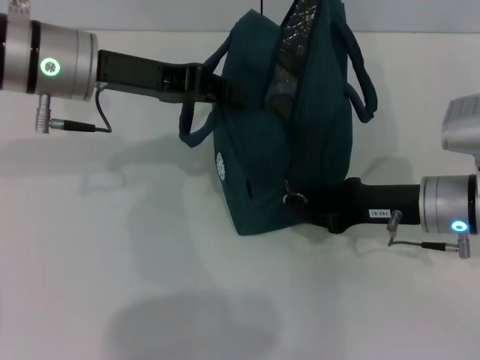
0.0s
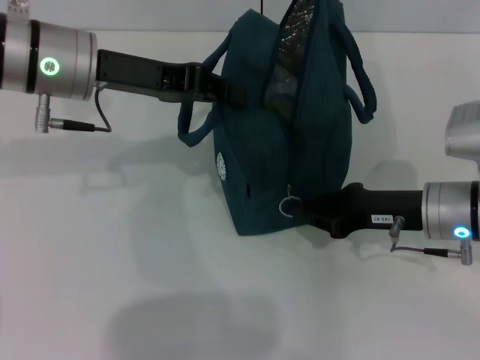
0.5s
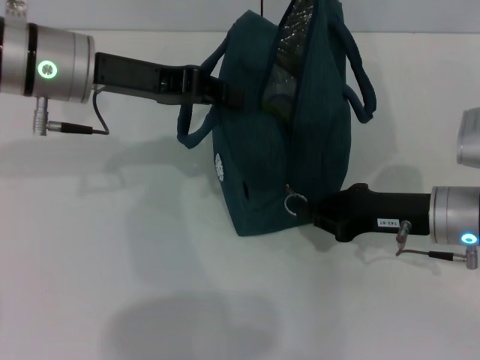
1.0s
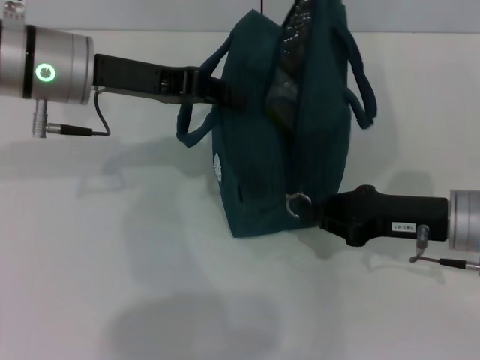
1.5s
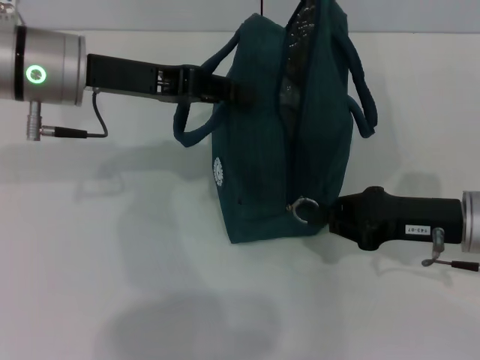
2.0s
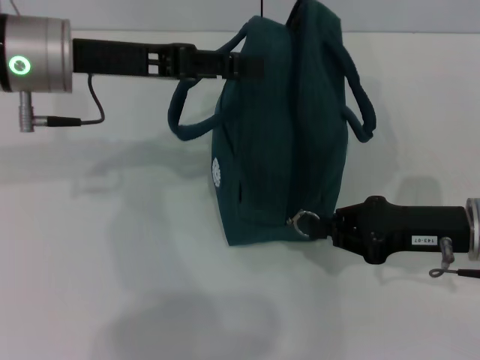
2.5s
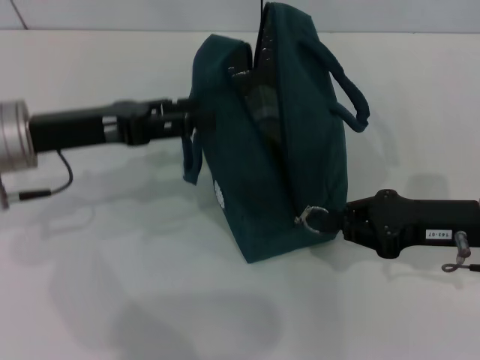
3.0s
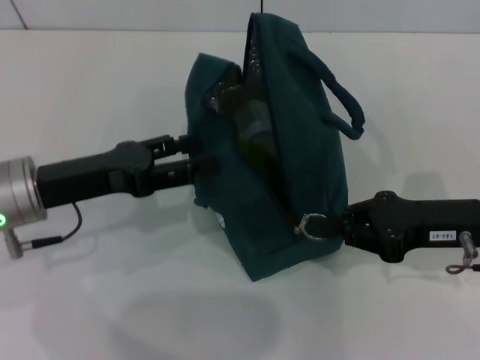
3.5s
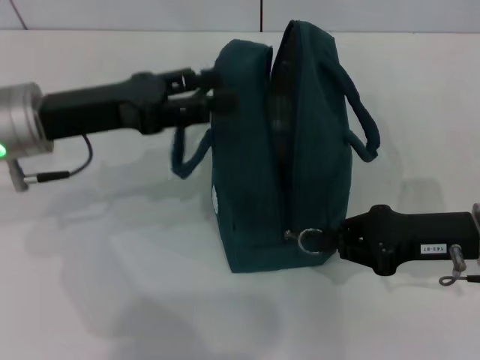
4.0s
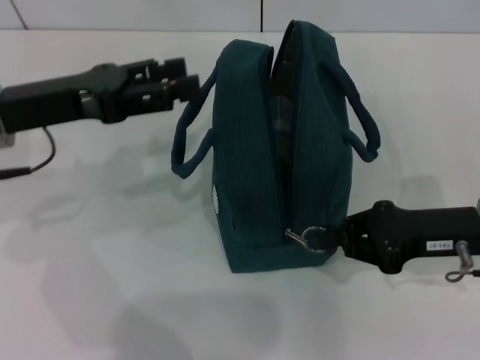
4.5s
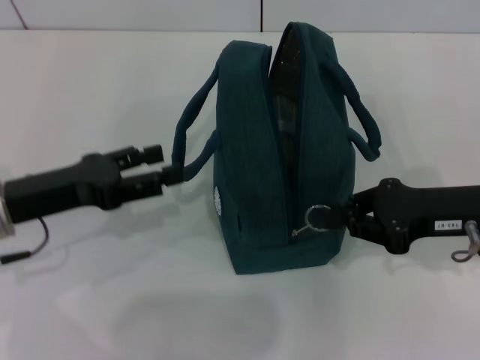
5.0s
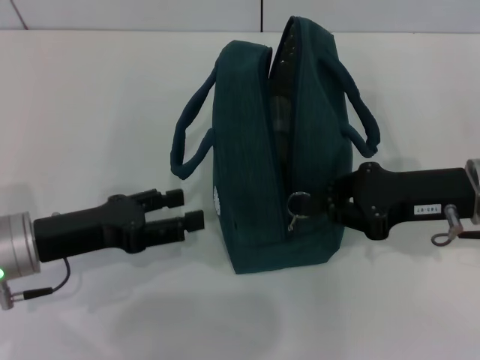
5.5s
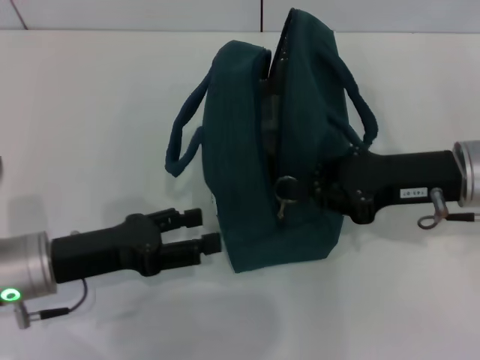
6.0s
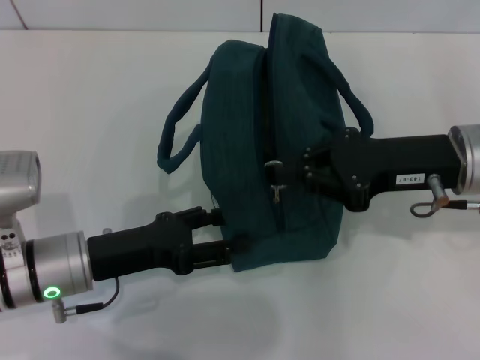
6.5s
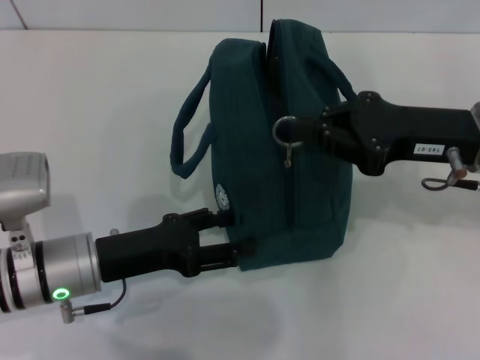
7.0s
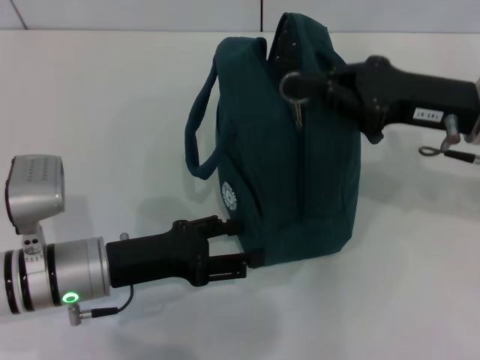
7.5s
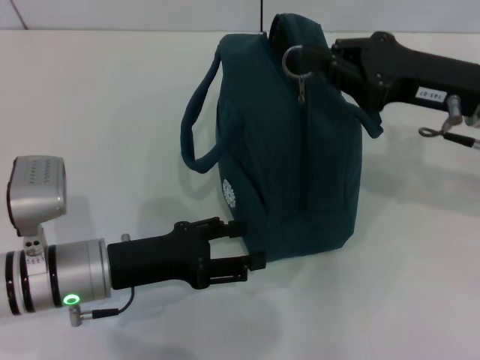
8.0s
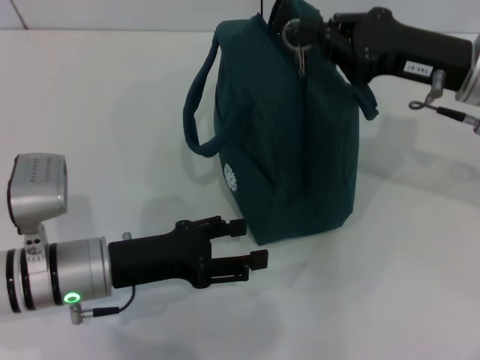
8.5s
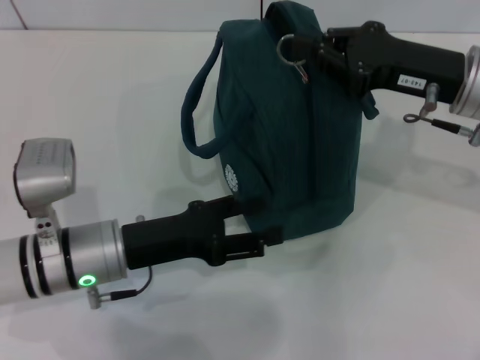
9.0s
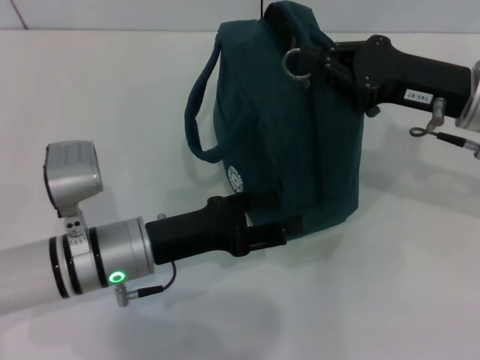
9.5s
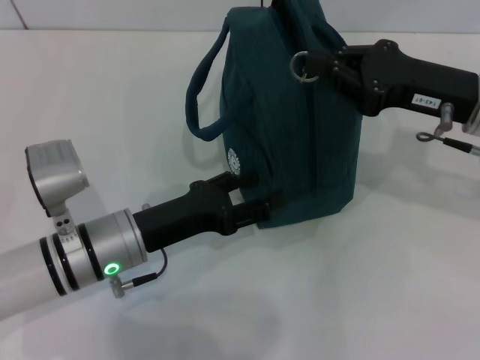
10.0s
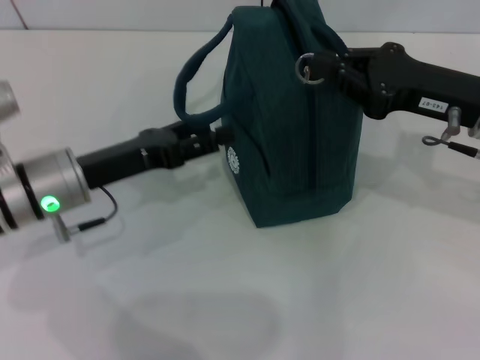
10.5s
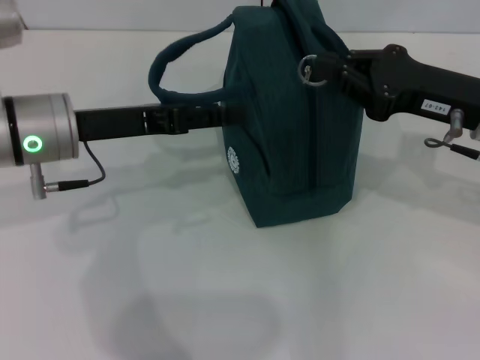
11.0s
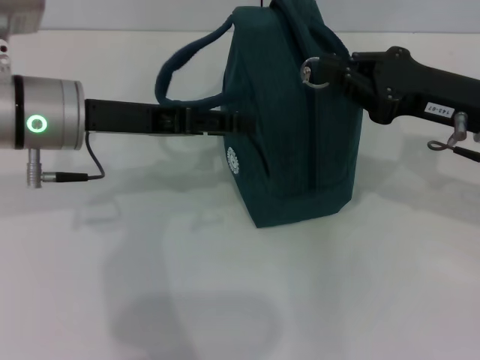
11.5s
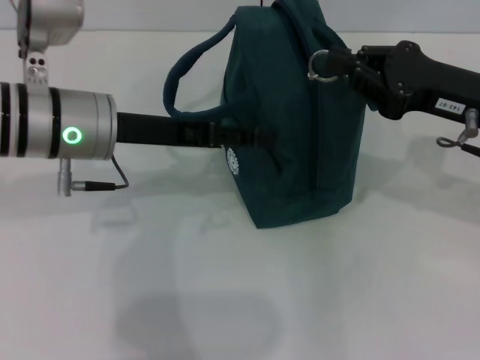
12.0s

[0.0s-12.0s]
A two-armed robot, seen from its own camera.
Step, 0.0s to 2.5s: Hold the lunch bag with your left hand.
0.0s to 2.0s: The right gripper closes its fingers.
2.0s to 4.0s: The left gripper opens its fingers.
4.0s to 6.0s: The right gripper moves about 5 cm. Meanwhile the left gripper goes roughly 10 cm downward and backward.
6.0s to 8.0s: The left gripper moves roughly 5 cm.
10.0s to 12.0s: The left gripper is displaced upward and forward by roughly 15 cm.

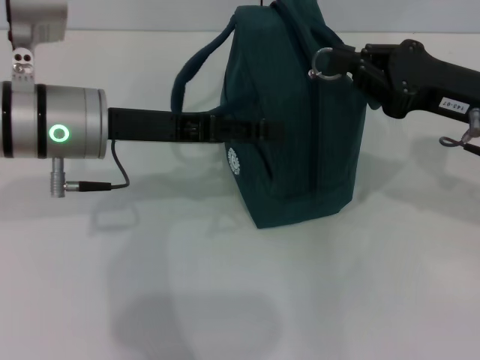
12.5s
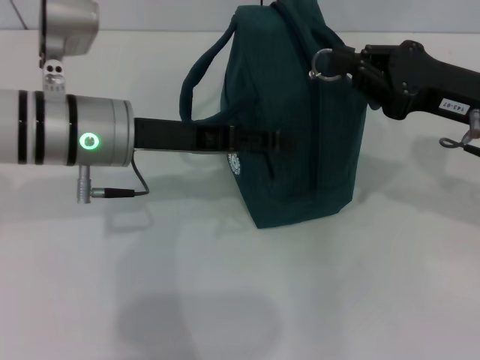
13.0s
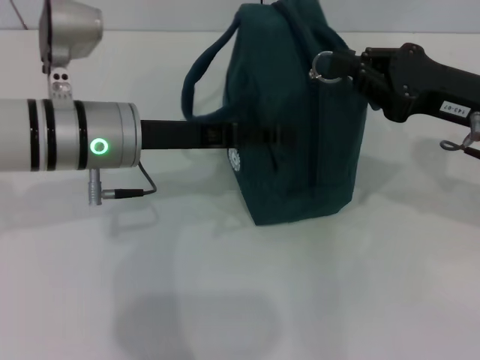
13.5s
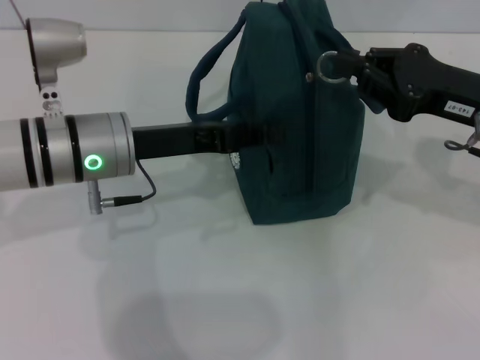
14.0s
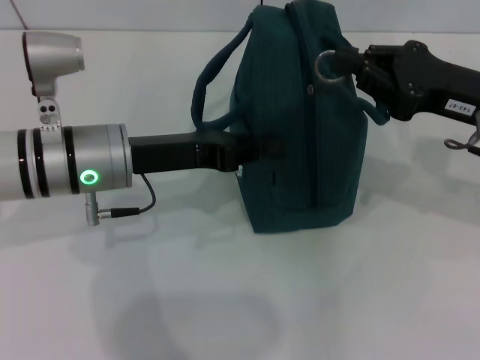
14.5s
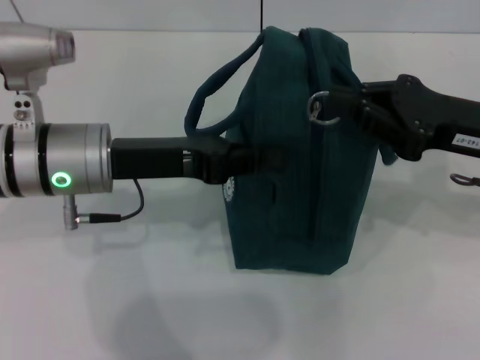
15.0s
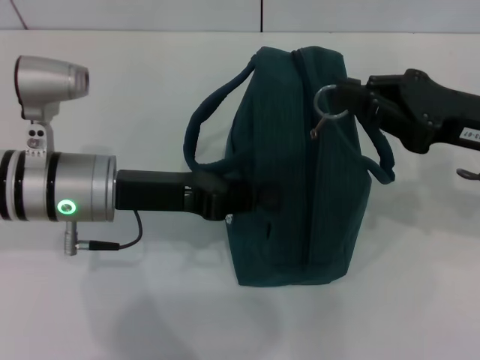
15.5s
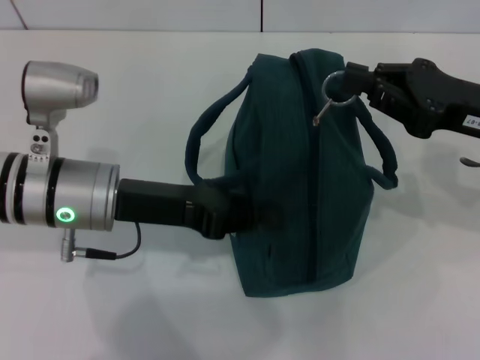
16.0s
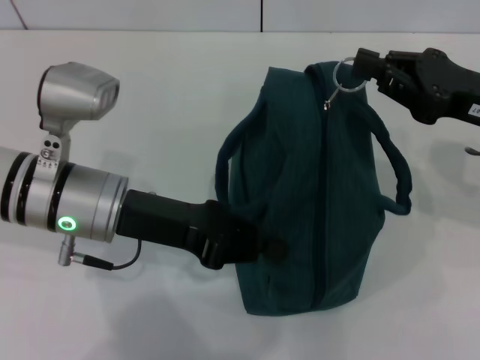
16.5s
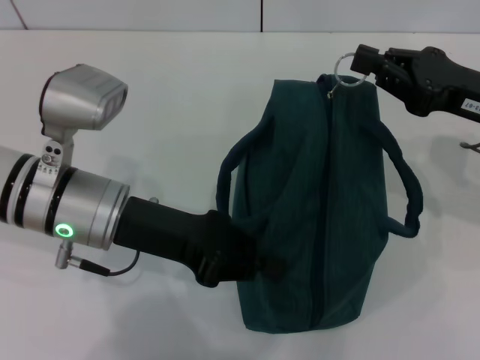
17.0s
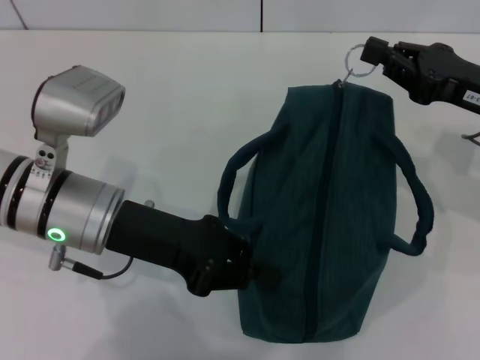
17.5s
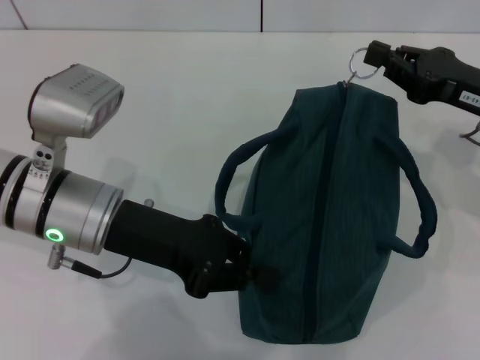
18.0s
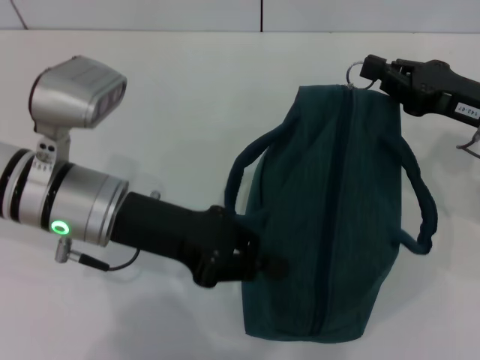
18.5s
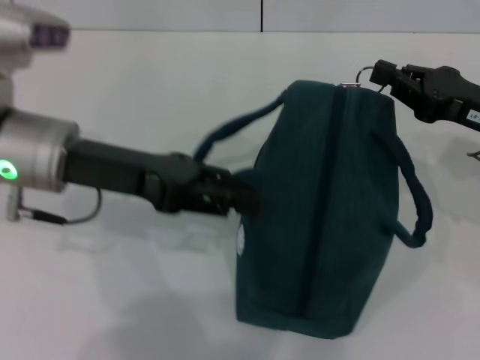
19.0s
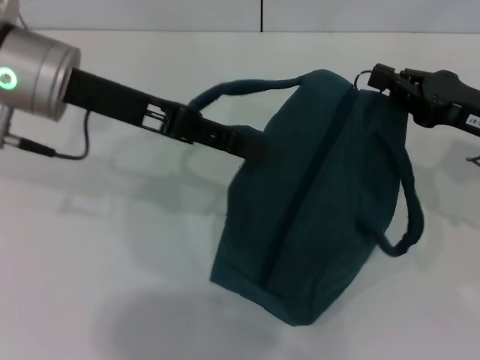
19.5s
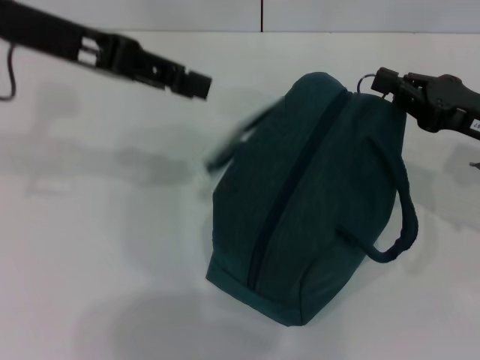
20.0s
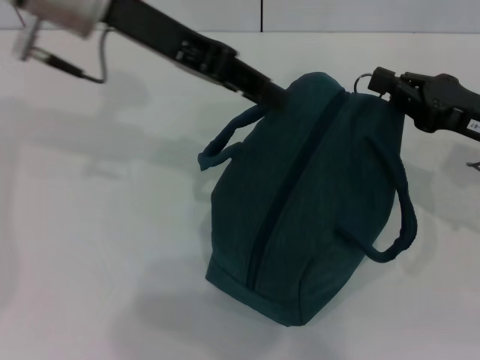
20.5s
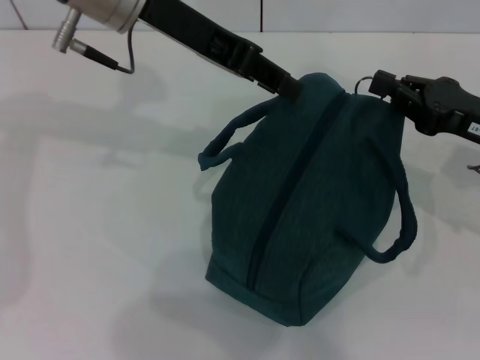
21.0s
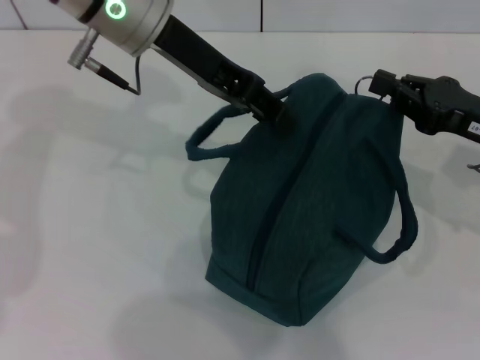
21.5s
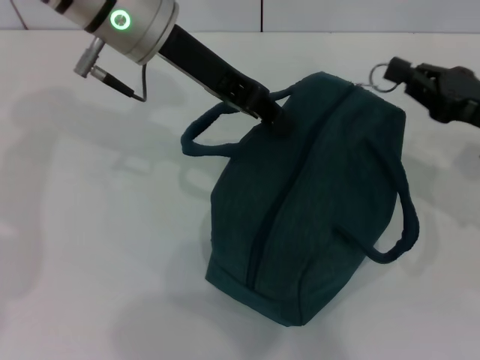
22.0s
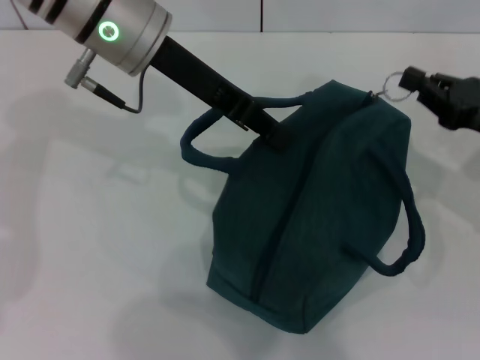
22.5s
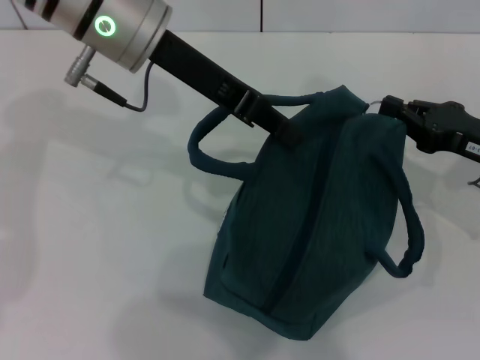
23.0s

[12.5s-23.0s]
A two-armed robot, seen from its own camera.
12.5s to 14.5s: The left gripper closes its fingers.
16.5s to 19.0s: The left gripper ends up about 5 cm from where it was.
19.0s to 21.0s: The left gripper travels upward, forward and to the right by roughly 15 cm.
21.0s to 23.0s: The left gripper closes its fingers.

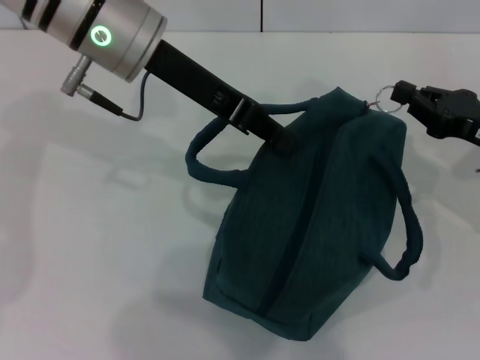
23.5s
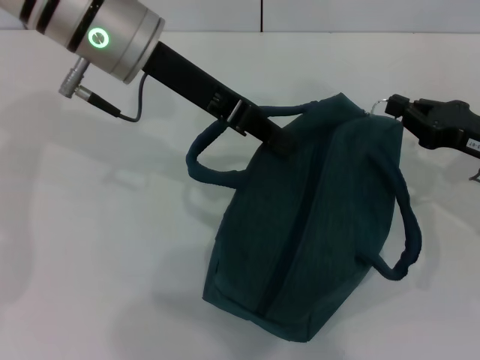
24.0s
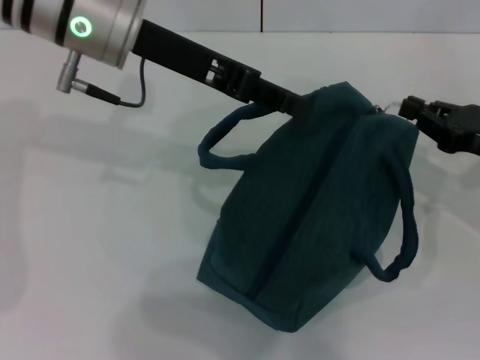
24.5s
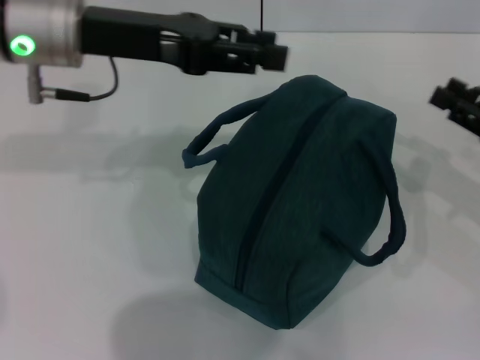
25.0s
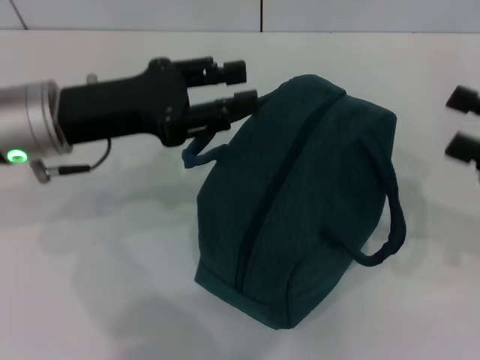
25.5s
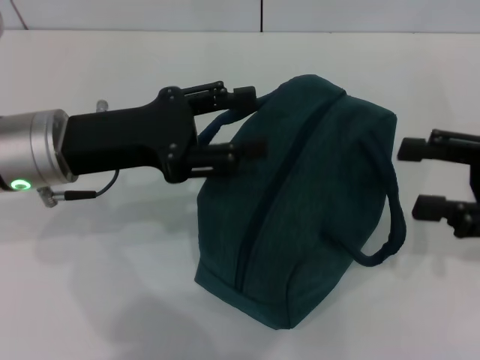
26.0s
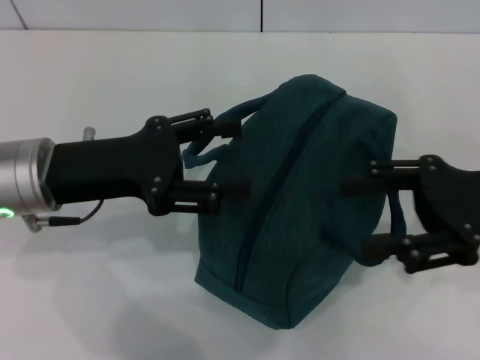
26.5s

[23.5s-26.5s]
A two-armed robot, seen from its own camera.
23.5s to 25.0s: The right gripper ends up some 5 cm from where it was, and opens up, while the left gripper moves to the left, roughly 5 cm, and opens its fingers.
25.0s to 26.5s: The left gripper shifts about 10 cm downward and backward, and opens up. The right gripper shifts roughly 10 cm to the left and upward, and opens up.
